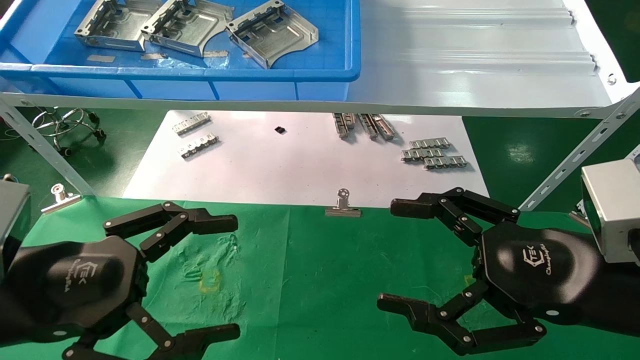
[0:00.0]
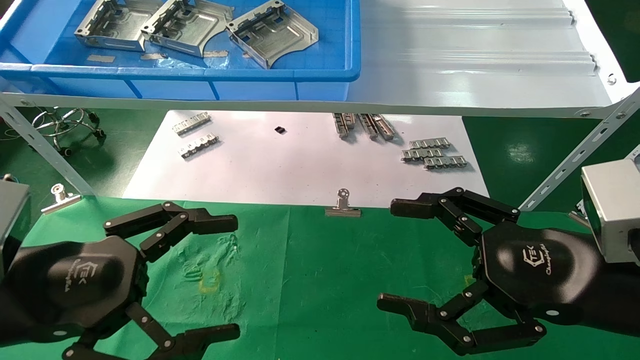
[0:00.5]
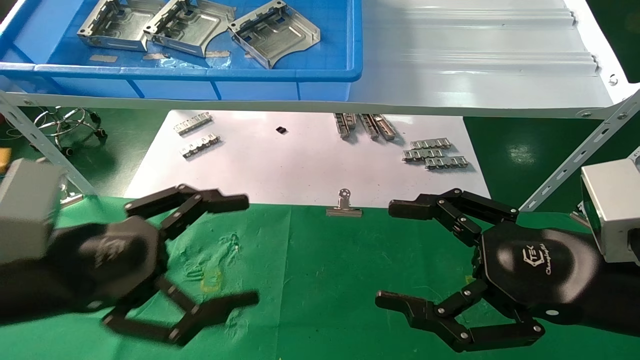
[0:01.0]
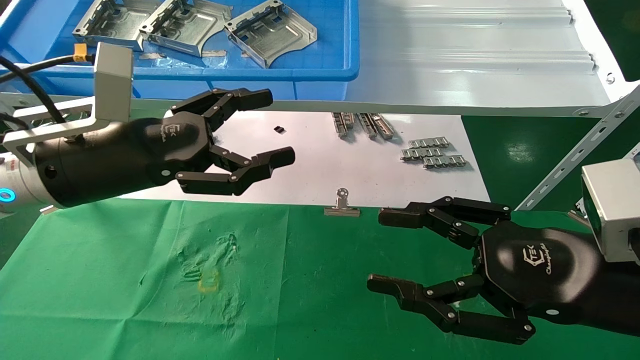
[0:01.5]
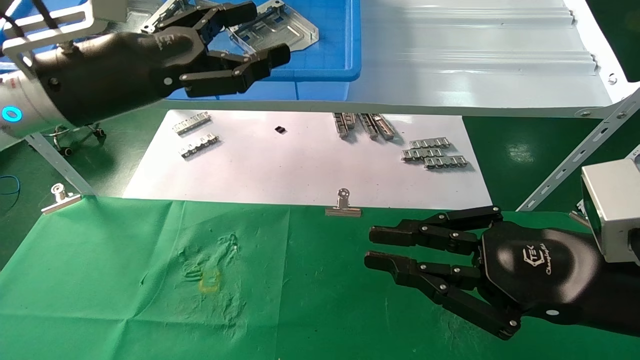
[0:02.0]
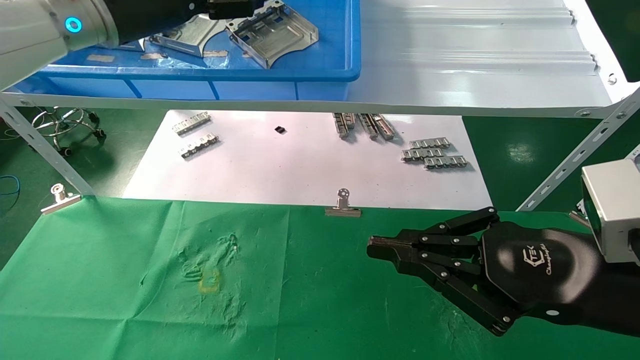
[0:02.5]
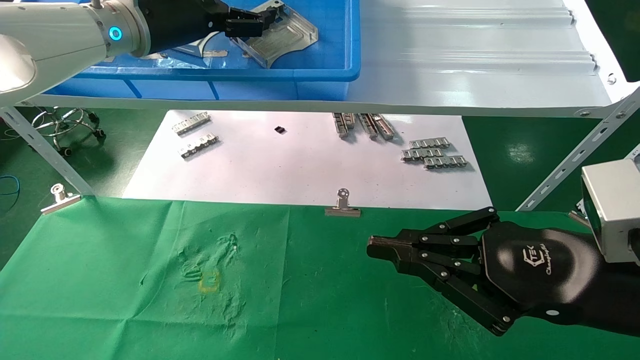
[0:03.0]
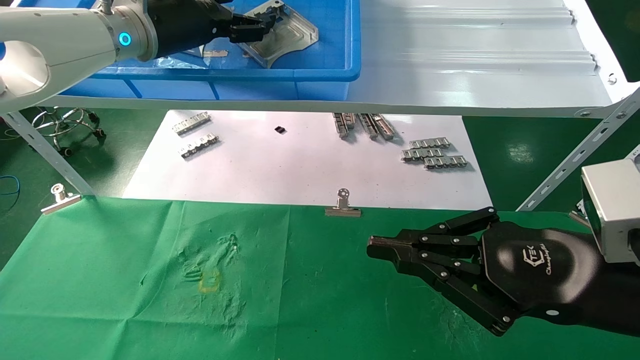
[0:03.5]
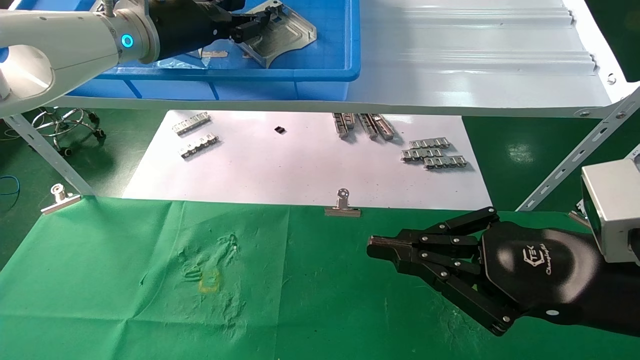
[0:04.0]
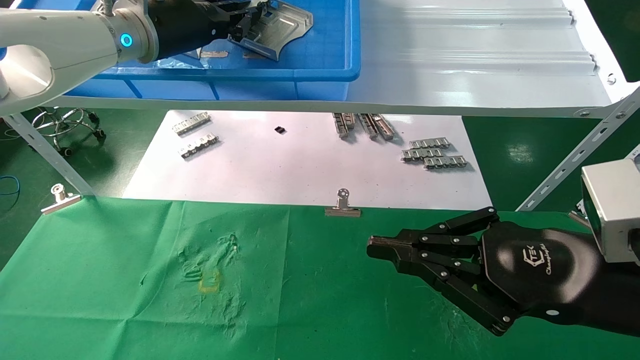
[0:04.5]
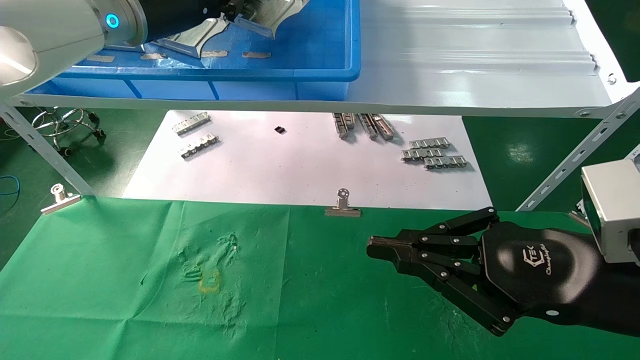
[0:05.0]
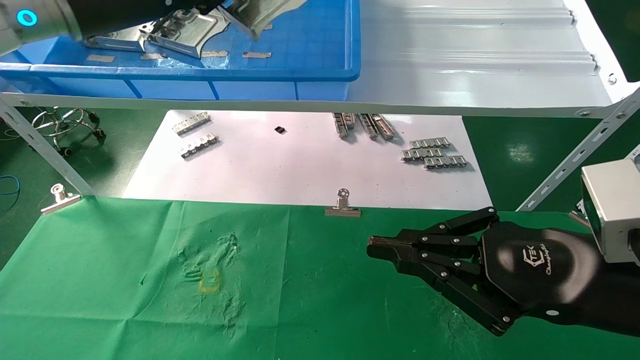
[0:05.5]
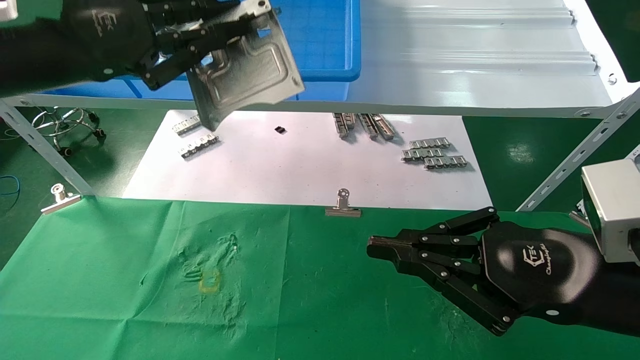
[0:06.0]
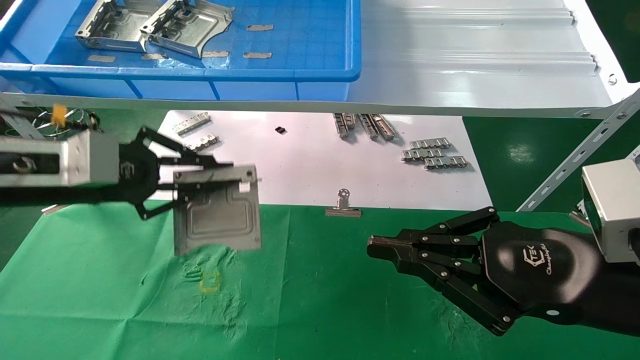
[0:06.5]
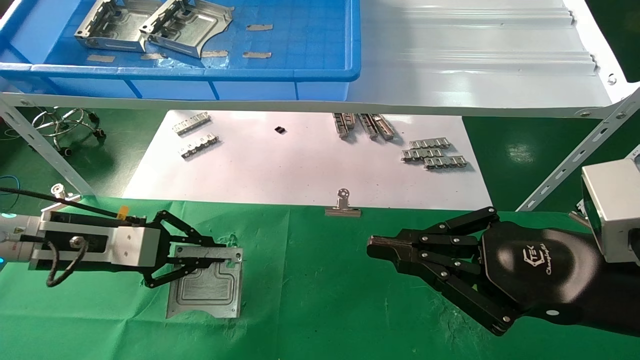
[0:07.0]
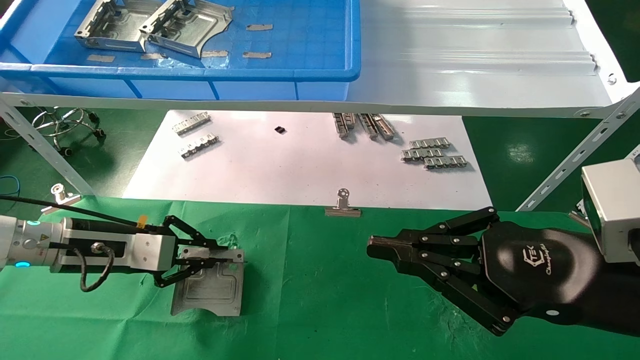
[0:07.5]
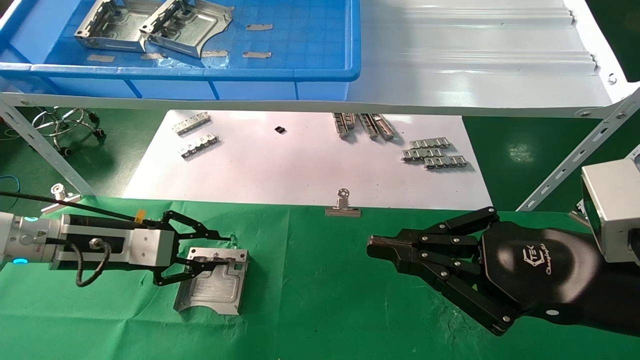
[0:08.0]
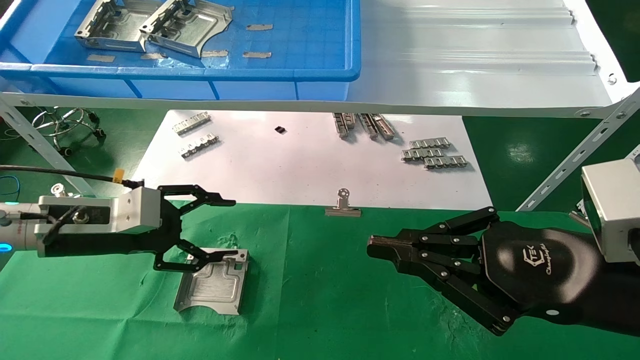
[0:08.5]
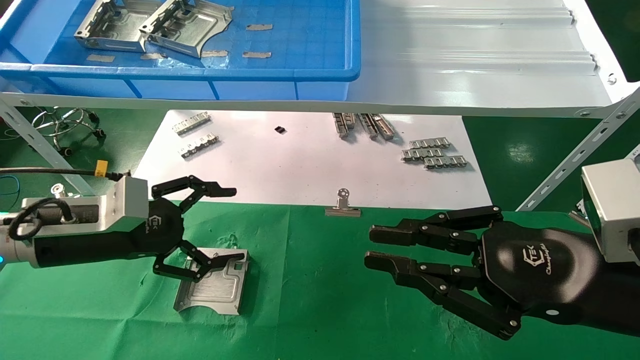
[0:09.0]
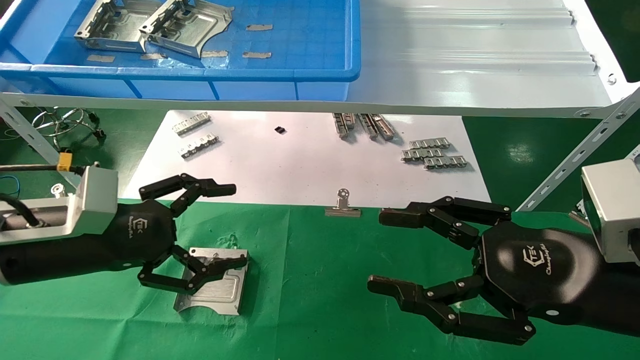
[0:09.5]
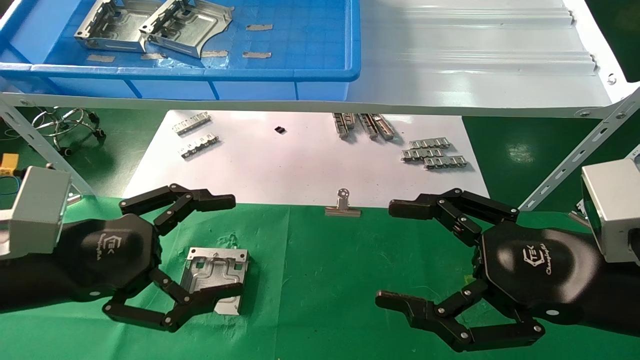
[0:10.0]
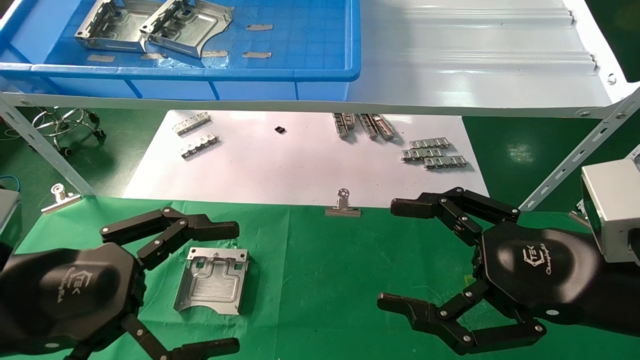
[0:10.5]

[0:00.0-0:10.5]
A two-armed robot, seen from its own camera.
Task of the whole recording: use the mechanical arm to pick up the parts and place them on the table.
Step, 0:01.5 to 0:04.5: Pick up the hard drive bracket from the feeding area.
Step, 0:05.0 to 0:07.5: Place the hard drive bracket into the box.
0:00.0 to 0:02.0: The right gripper closes; the left gripper goes about 20 cm forward and upward.
0:02.0 to 0:04.0: The left gripper shifts about 10 cm forward and upward, and closes its fingers.
0:04.0 to 0:06.5: The left gripper heads downward, backward and to the left, covering about 20 cm, and closes up.
0:06.5 to 0:08.5: The left gripper heads downward, covering approximately 10 cm, and opens up.
0:08.5 to 0:10.5: The right gripper opens up. Meanwhile the left gripper heads backward, covering some 15 cm, and opens its fingers.
